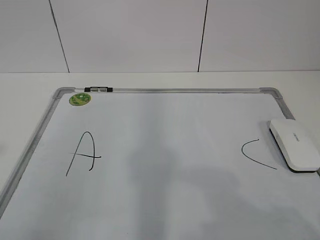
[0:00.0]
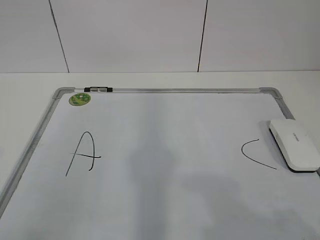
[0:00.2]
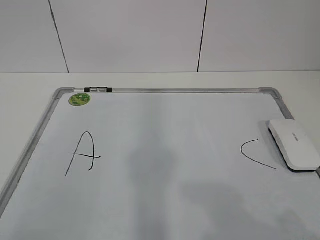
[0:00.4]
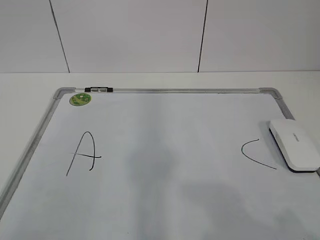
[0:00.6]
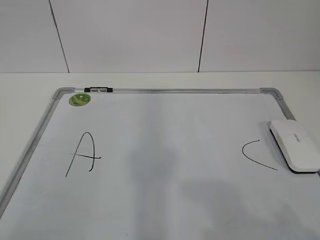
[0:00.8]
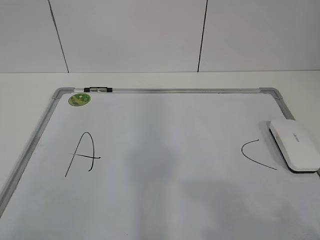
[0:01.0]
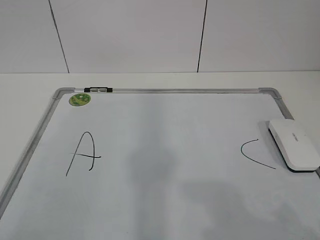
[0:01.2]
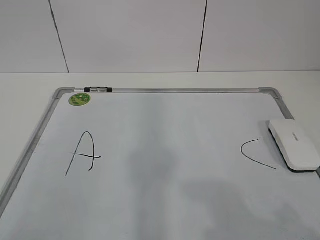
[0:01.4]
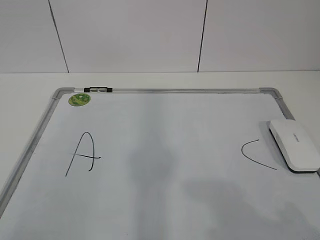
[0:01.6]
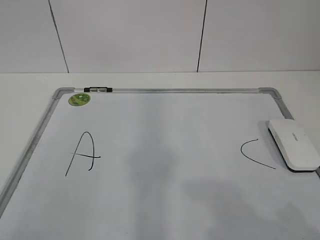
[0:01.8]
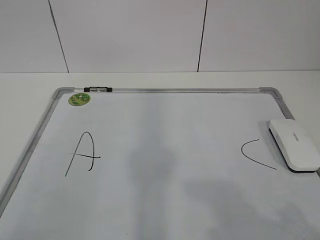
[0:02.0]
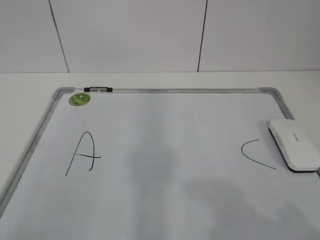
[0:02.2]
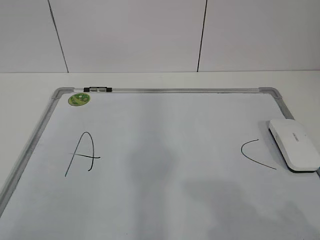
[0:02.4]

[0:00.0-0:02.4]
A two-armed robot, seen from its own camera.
Task of the whole recording: pick up the eraser on the blackboard and erase the letter "B".
0:01.2 to 0:02.4: Neither gripper changes place.
